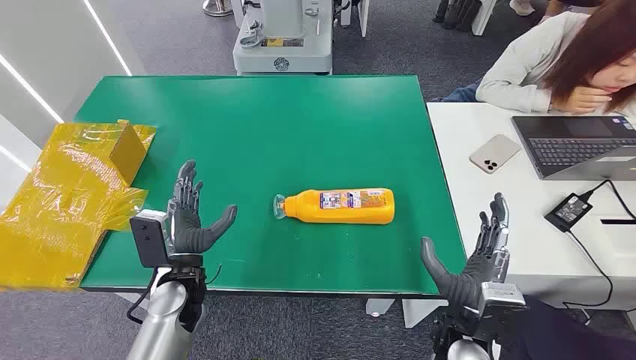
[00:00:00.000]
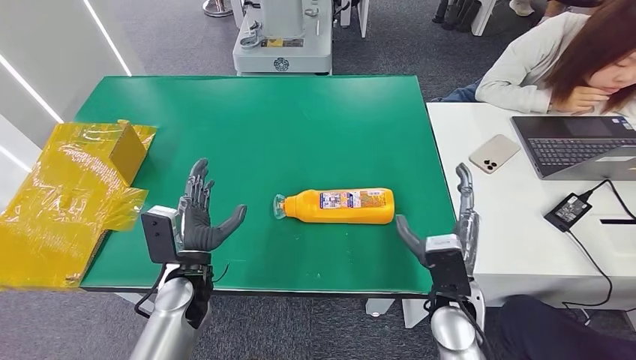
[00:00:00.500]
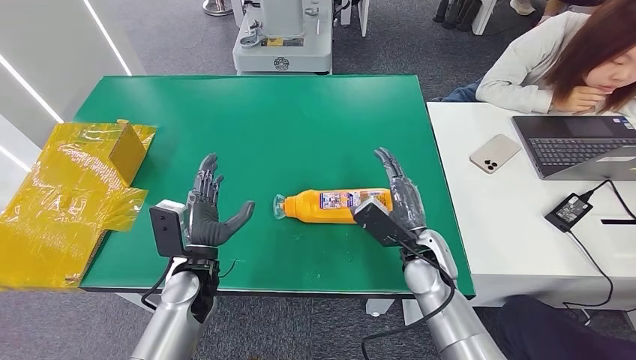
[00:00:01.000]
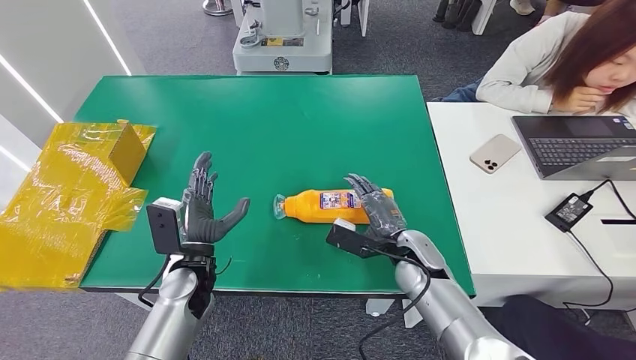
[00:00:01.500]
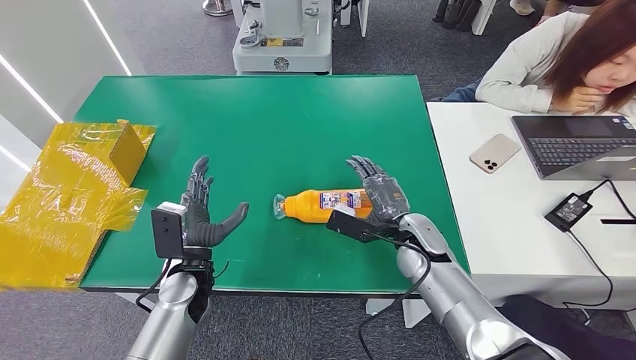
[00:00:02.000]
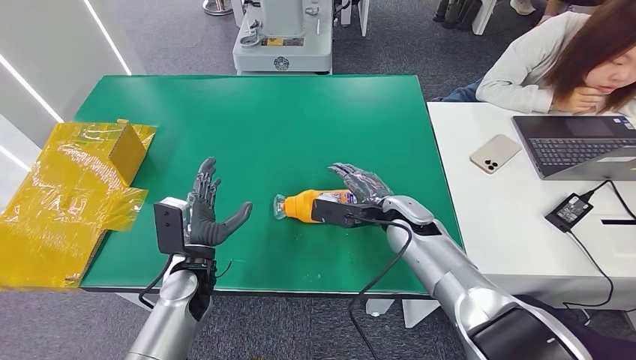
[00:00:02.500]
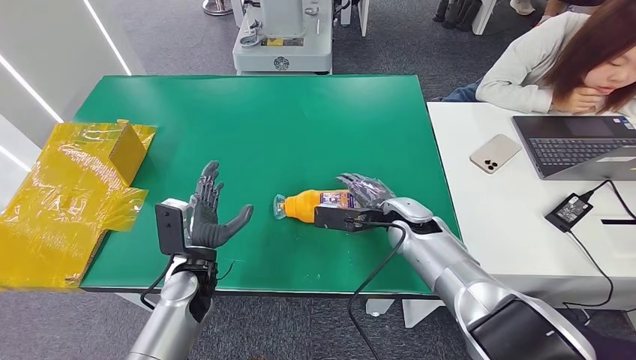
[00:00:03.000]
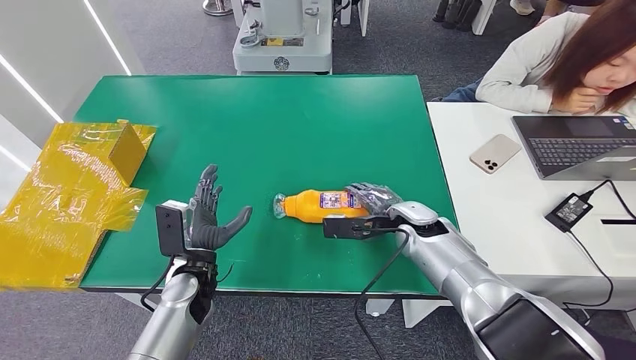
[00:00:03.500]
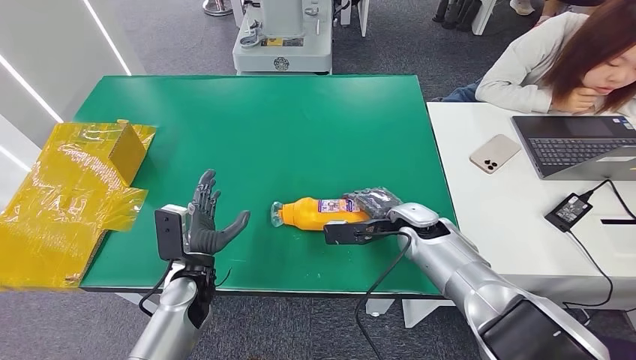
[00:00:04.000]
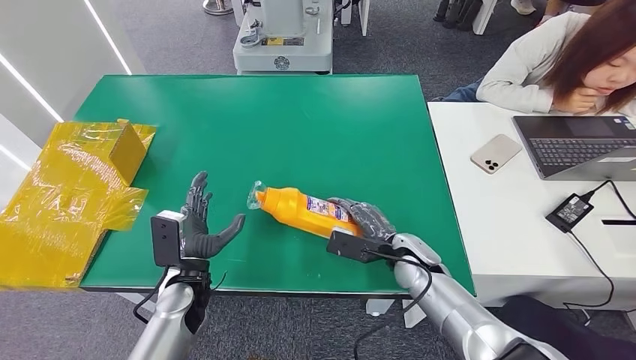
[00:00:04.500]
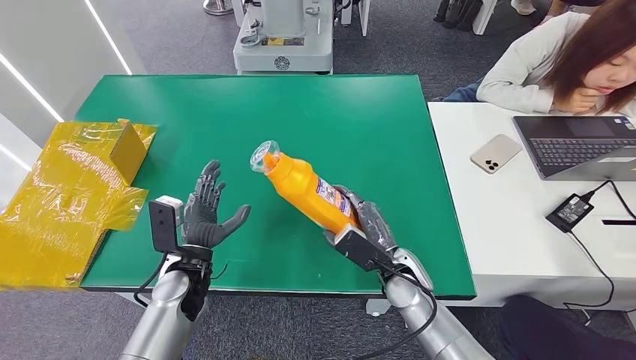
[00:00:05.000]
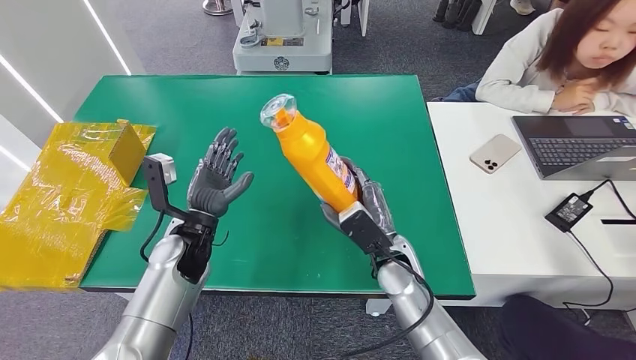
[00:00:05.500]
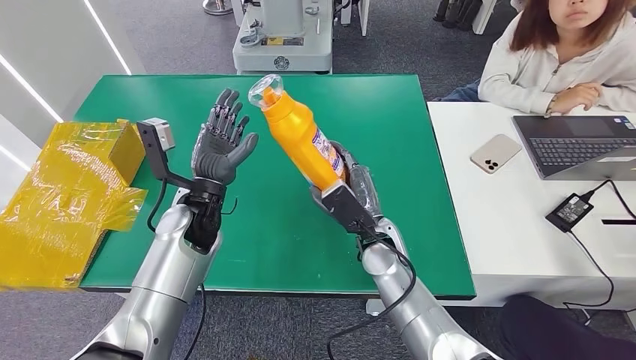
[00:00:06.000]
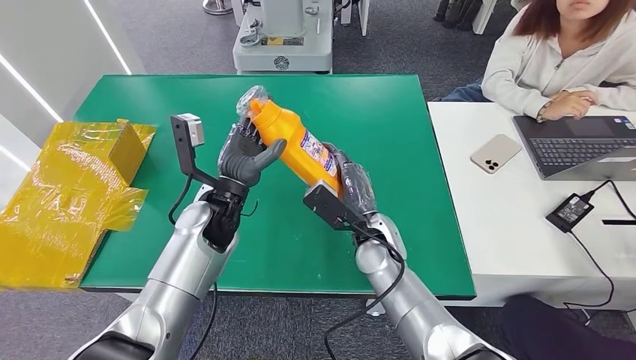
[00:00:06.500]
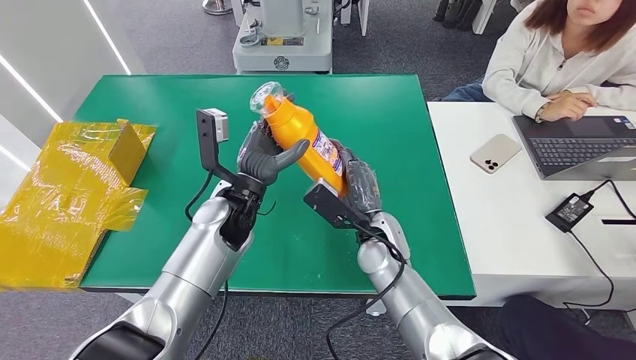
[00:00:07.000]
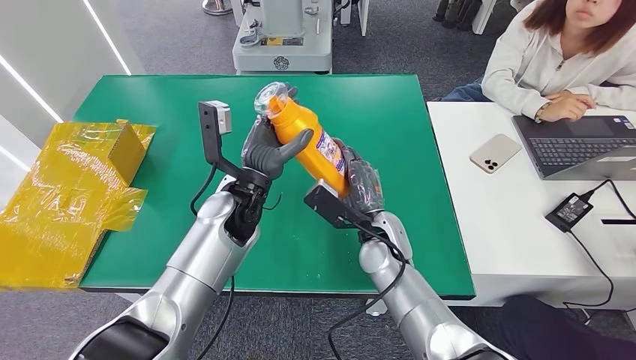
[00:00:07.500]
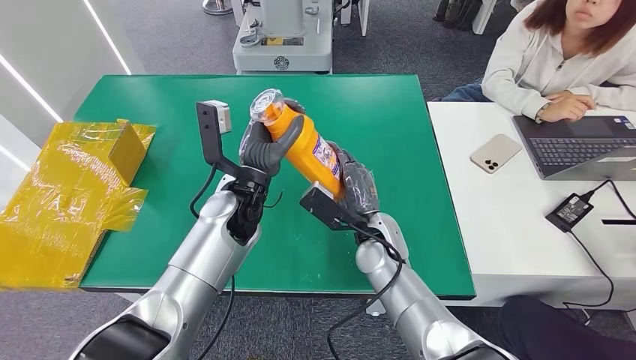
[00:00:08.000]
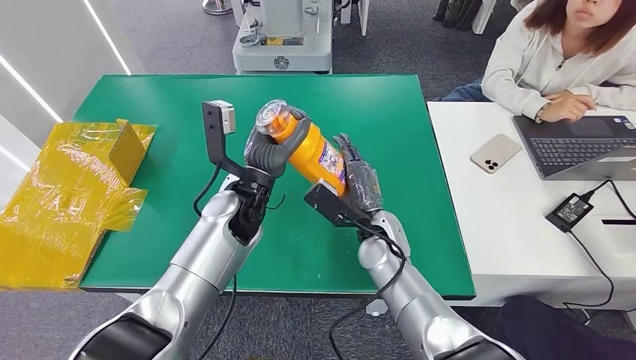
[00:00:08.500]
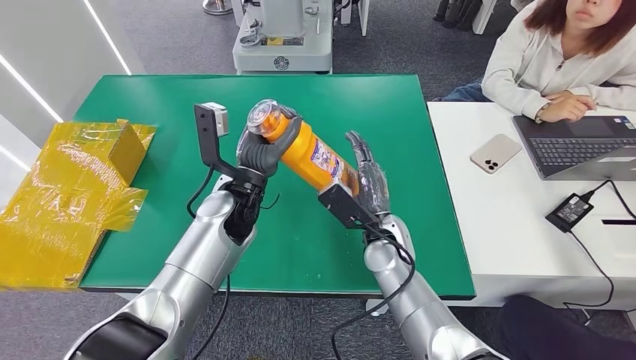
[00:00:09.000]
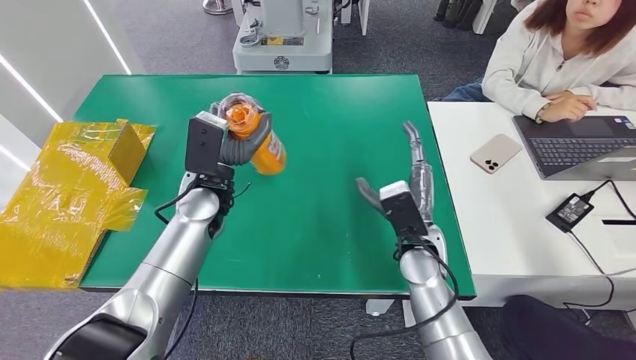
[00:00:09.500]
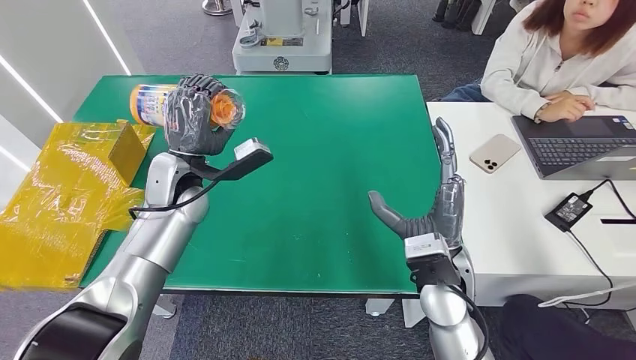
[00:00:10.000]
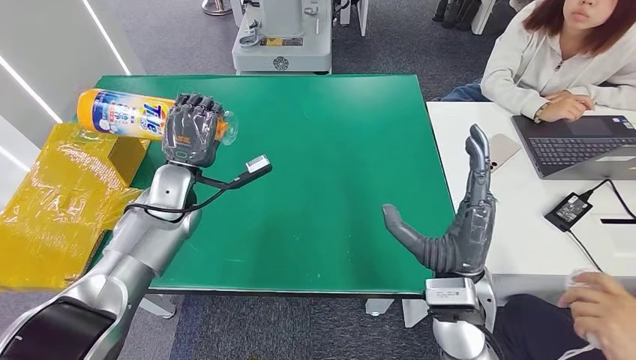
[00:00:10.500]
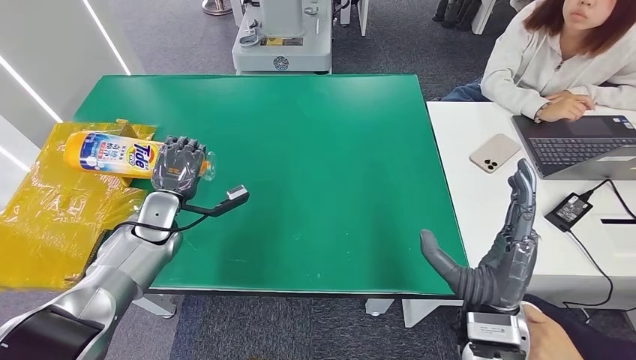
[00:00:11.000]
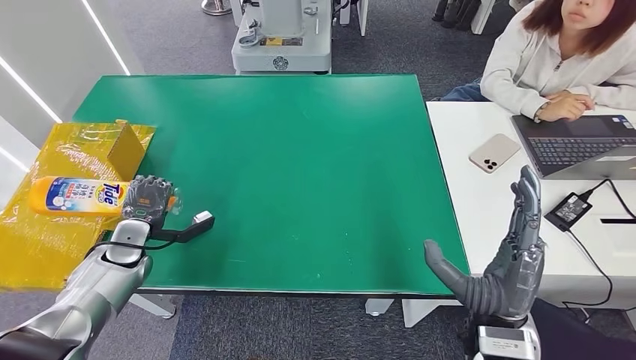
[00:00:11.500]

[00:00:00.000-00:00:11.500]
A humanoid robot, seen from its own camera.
Step, 00:00:00.000 to 00:00:06.500: Pick up the bottle from the table.
00:00:06.000 to 00:00:07.500: The left hand shifts approximately 5 cm to the right.

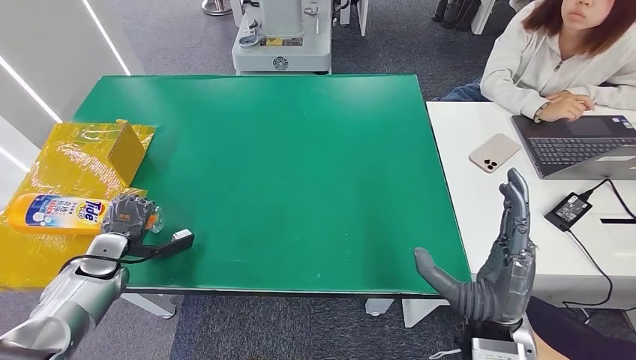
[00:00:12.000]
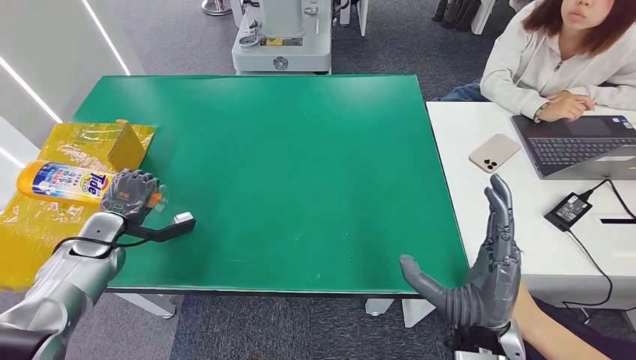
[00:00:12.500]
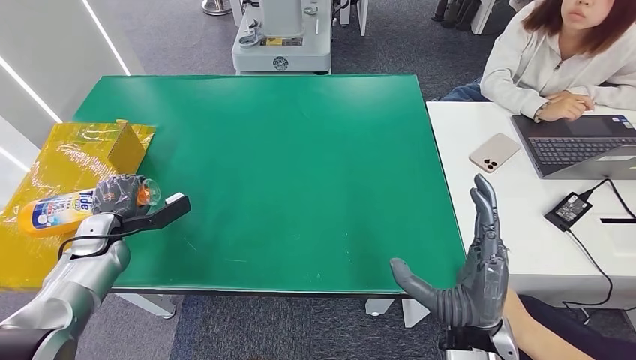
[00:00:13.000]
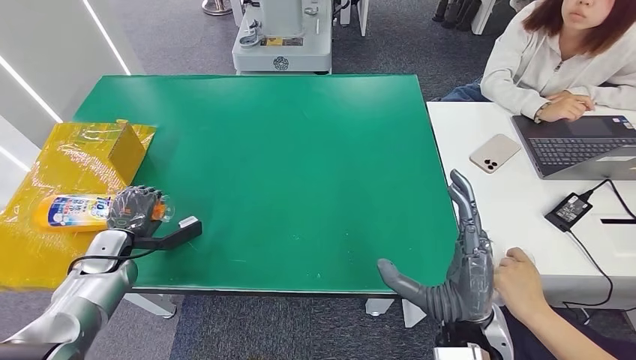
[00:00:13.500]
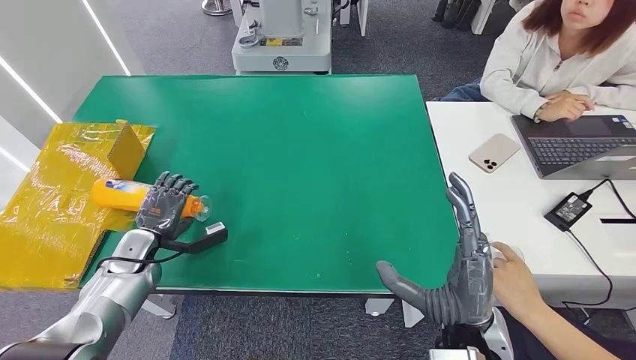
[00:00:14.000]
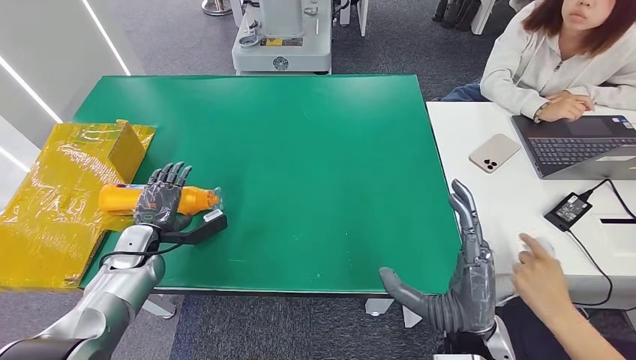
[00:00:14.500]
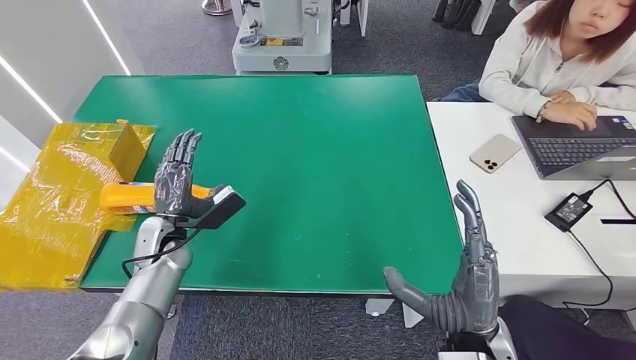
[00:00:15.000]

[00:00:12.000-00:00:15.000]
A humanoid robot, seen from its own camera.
Step, 00:00:12.000 to 00:00:15.000: Turn the bottle to the front side.
00:00:13.500 to 00:00:15.000: The left hand is displaced to the right by some 15 cm.

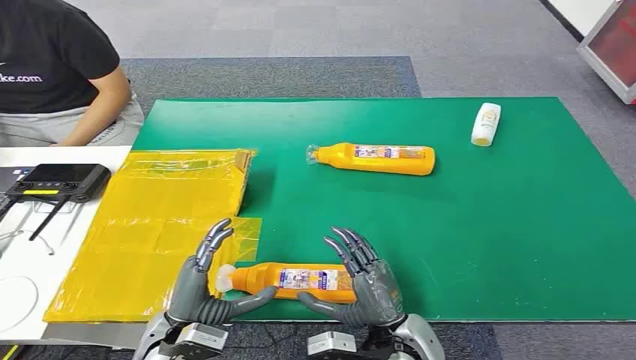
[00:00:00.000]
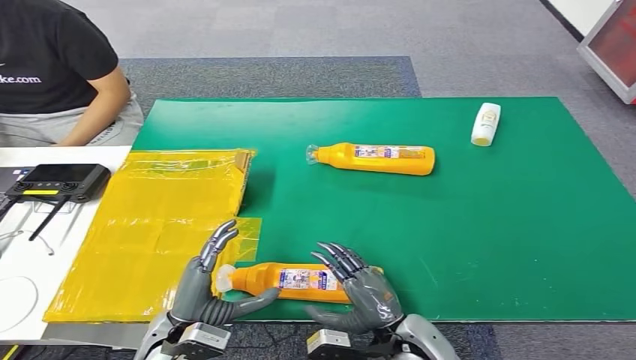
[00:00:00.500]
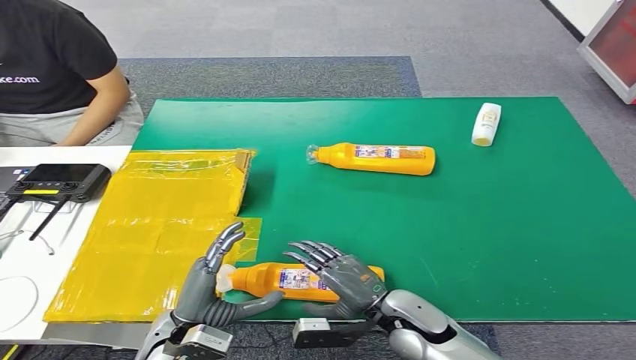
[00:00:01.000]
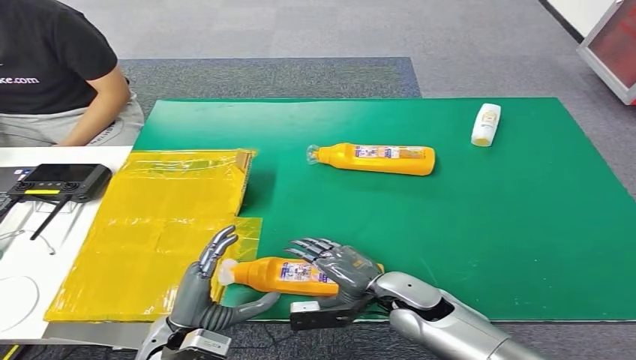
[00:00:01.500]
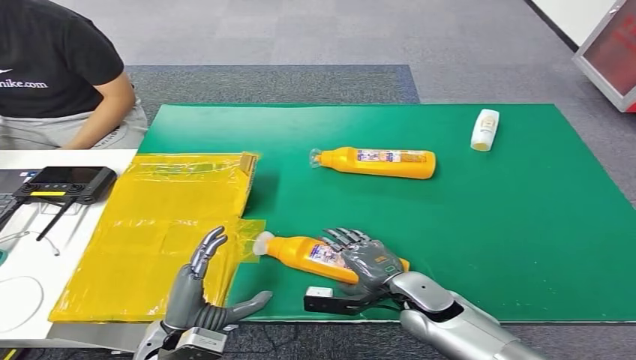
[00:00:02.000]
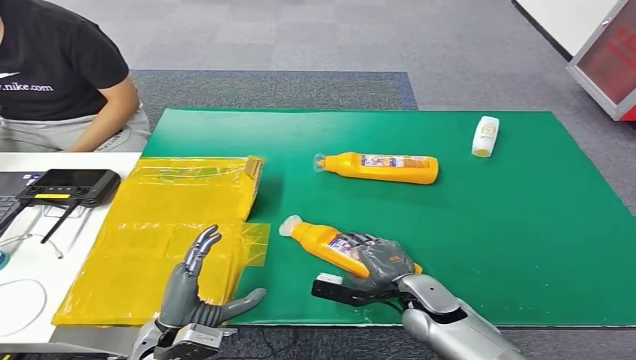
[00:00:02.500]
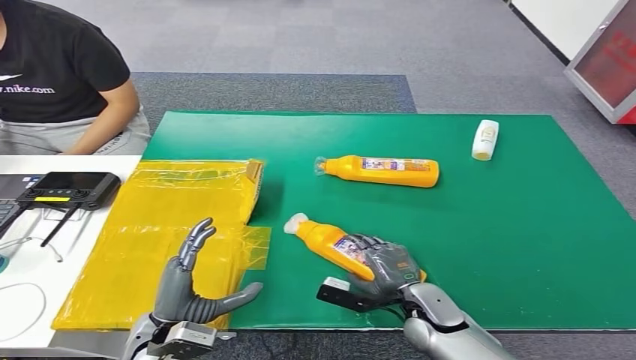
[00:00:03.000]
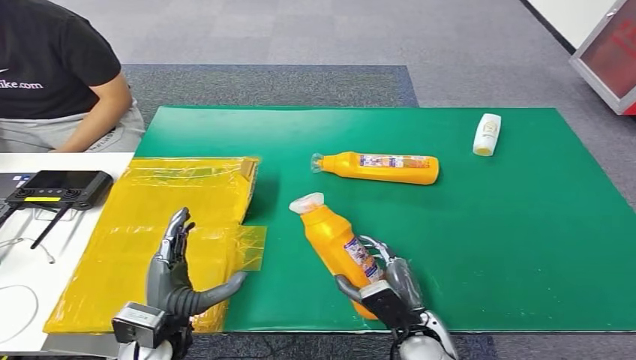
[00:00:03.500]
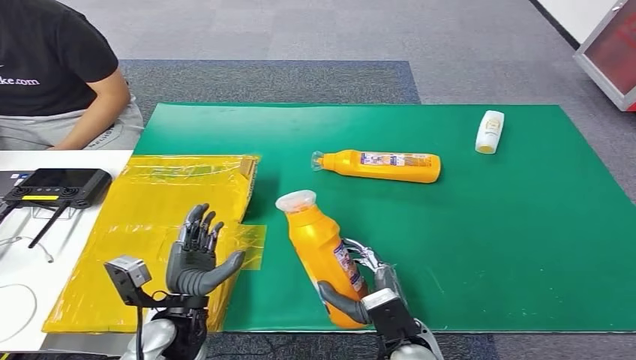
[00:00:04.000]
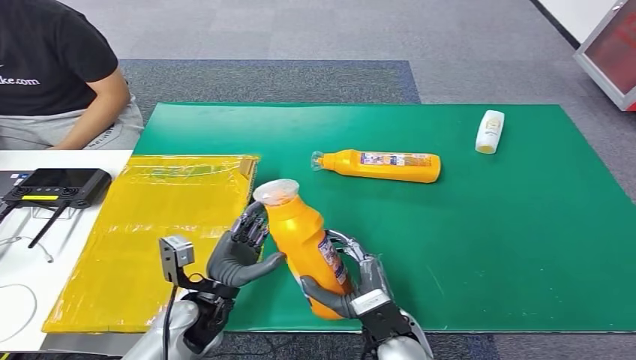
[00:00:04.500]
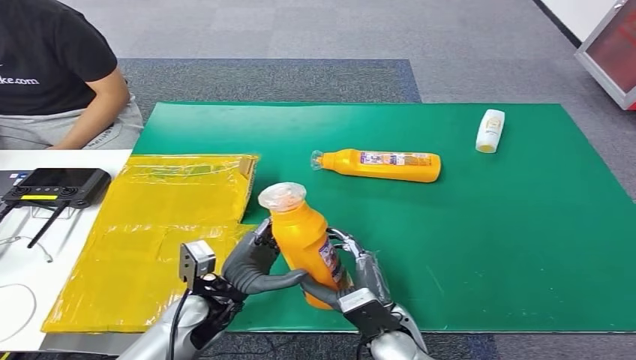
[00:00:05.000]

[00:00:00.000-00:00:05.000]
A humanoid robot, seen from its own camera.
Step, 00:00:00.000 to 00:00:03.500: Pick up the bottle from the table.
